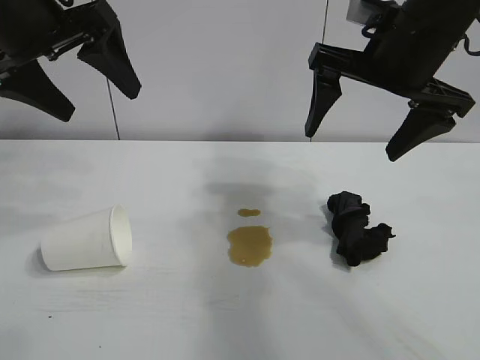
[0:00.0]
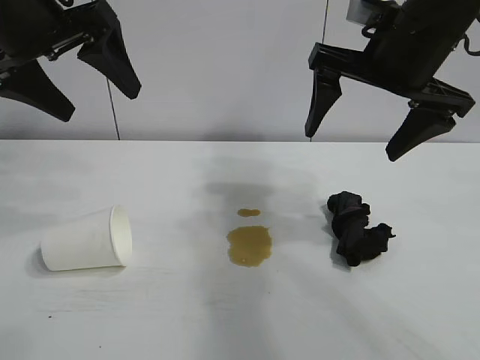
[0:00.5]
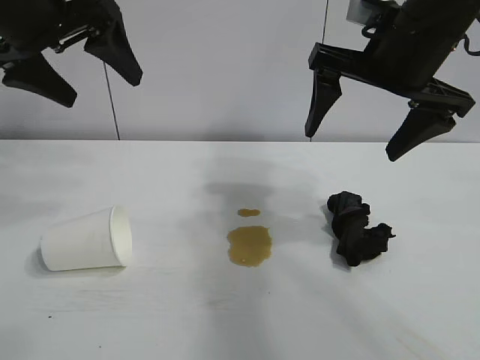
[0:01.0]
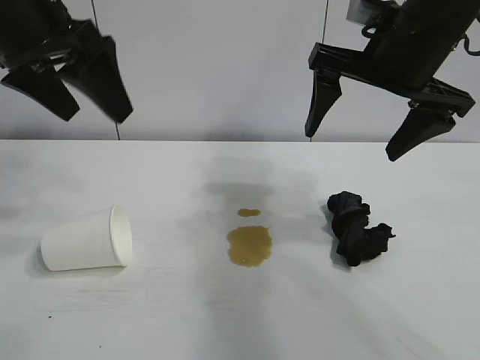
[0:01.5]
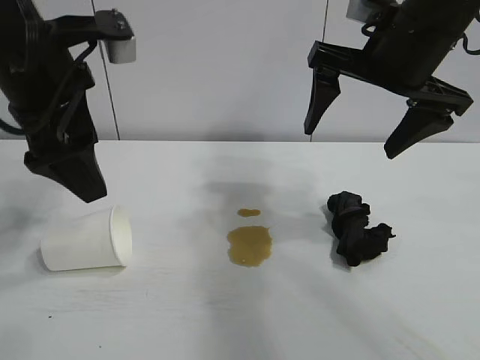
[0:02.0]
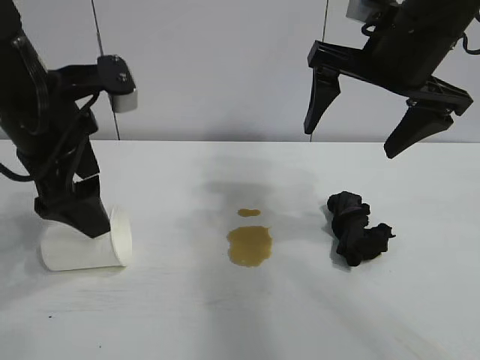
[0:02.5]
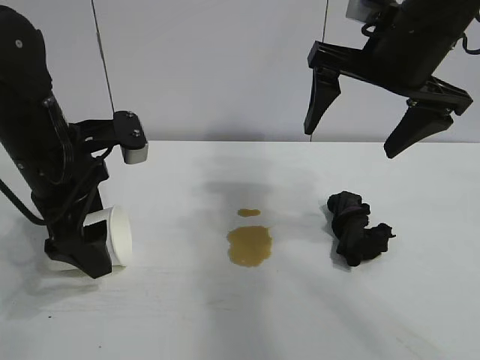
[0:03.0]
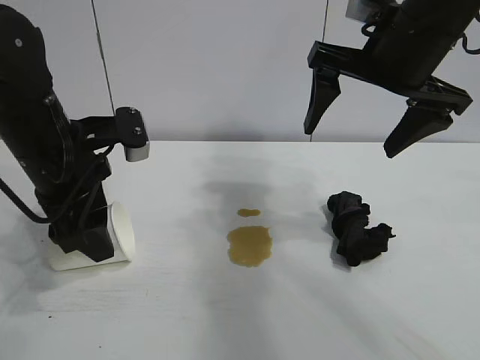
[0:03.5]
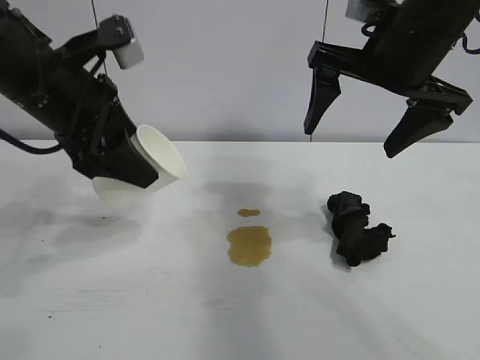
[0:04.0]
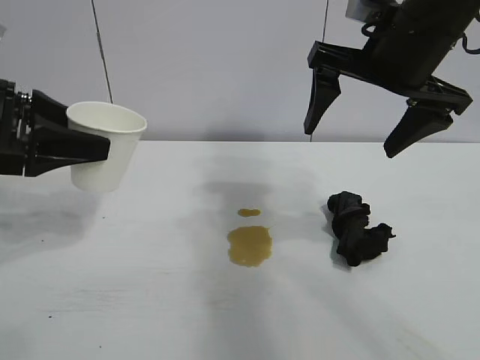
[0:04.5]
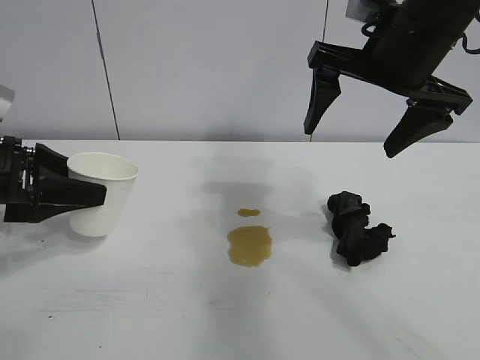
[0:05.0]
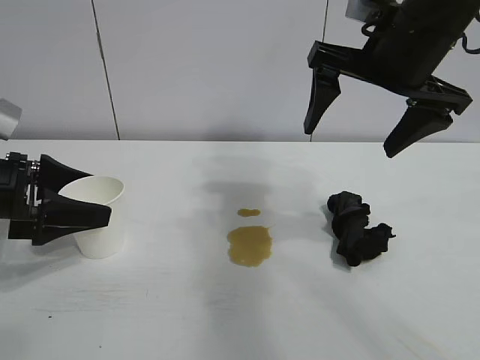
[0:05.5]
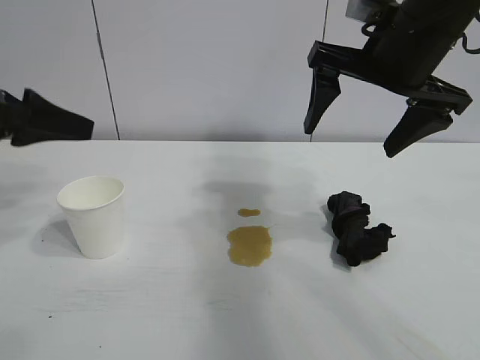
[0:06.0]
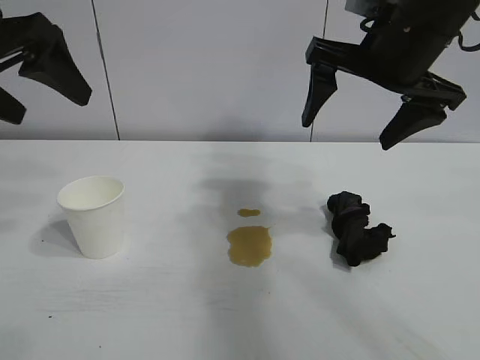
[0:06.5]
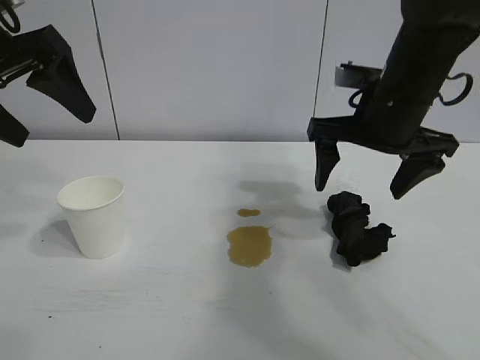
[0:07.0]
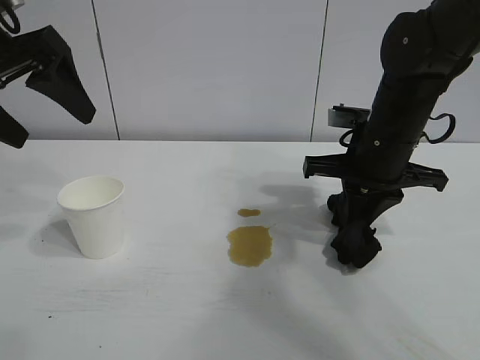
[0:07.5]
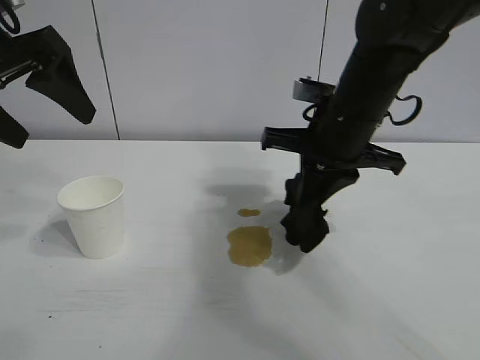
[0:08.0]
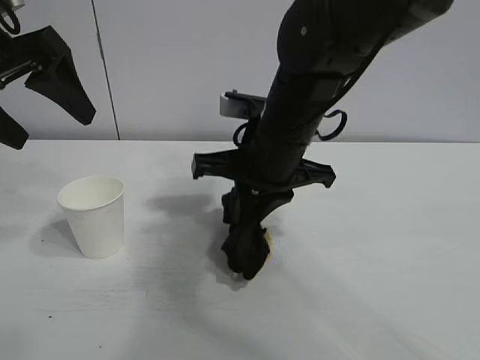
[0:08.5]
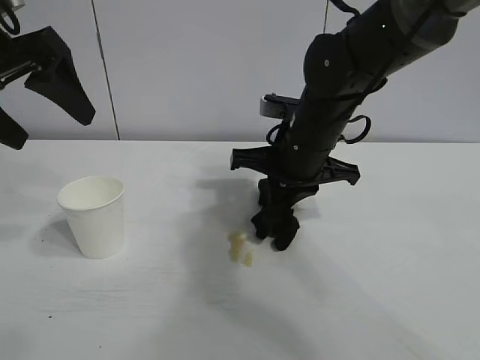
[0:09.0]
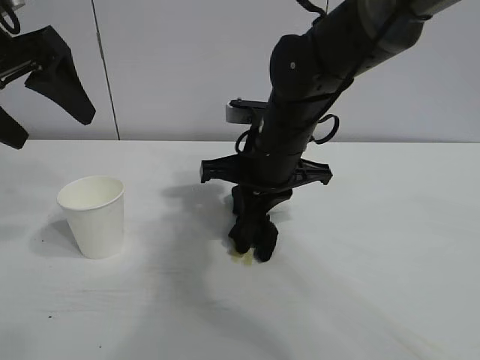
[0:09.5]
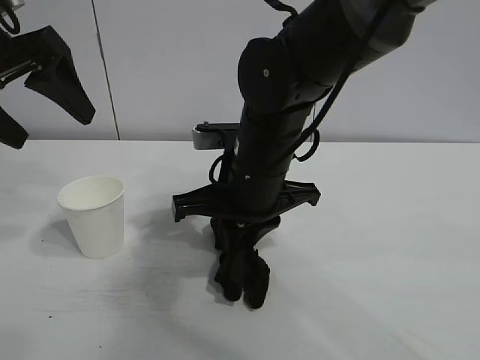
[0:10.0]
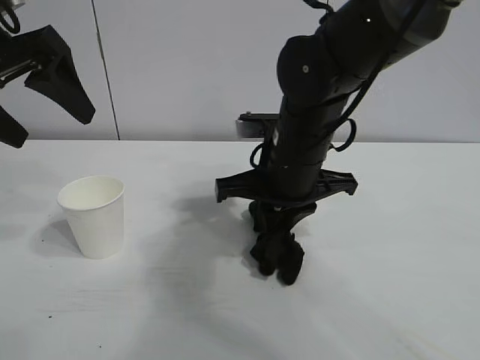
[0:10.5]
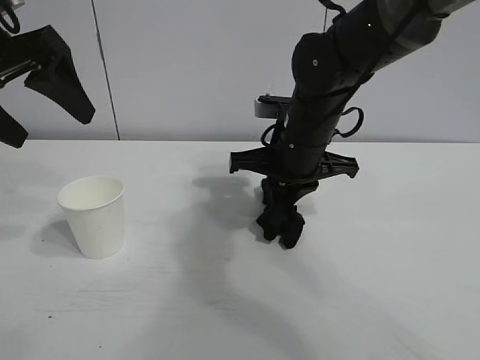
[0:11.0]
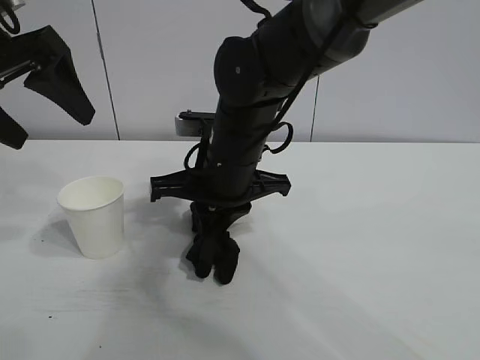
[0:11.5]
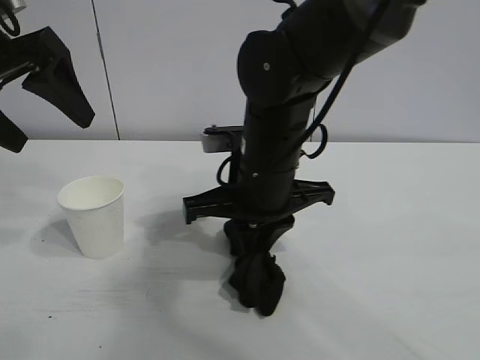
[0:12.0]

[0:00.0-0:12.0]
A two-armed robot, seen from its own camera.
Task of the whole recording: the left gripper pick up the fallen cup and place it upright, the right gripper grasp the black rag and wipe the stain on the table, the right gripper put the black rag back in its original position.
Step, 0:01.0 to 0:03.5: Grasp the paper cup with left gripper.
Step, 0:04.0 to 0:05.0: Stand the paper cup upright with left gripper.
Step, 0:06.0 to 0:07.0: Grasp the rag with right gripper.

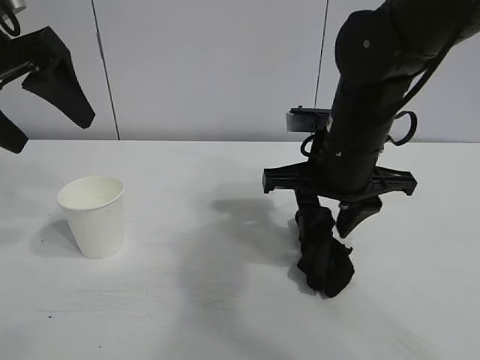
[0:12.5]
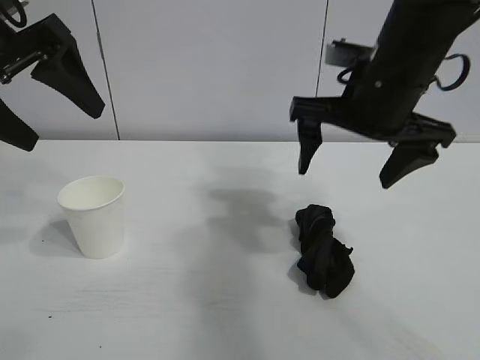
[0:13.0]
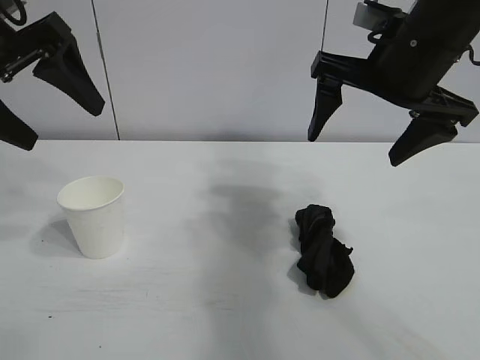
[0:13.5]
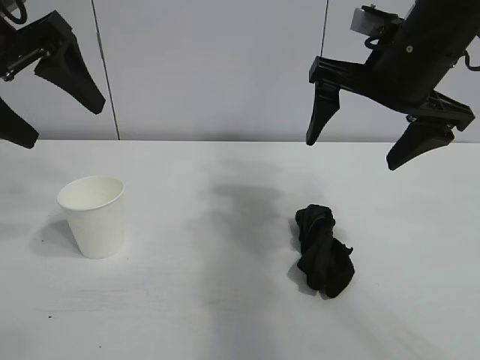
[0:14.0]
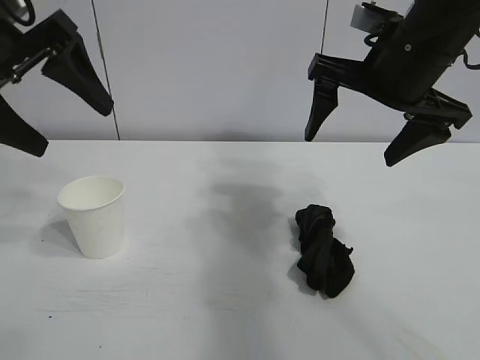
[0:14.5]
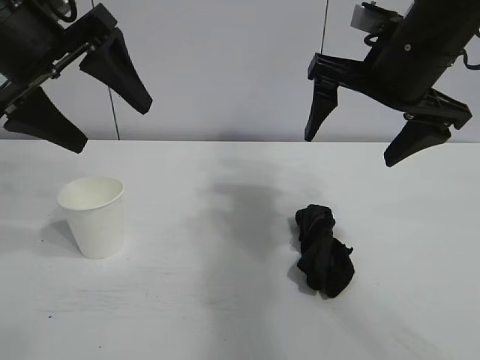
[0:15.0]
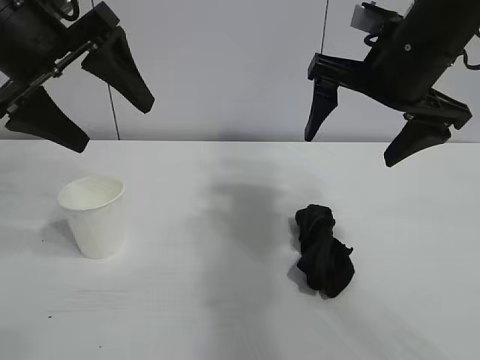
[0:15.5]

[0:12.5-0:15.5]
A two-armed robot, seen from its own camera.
Task of the whole recording: the left gripper pick up the fallen cup and place it upright, the right gripper grasp the black rag and wipe the stain on the table, the right gripper put the black rag back in its original position.
Step, 0:12.5 to 0:13.0: Place the rag on the table with right gripper.
